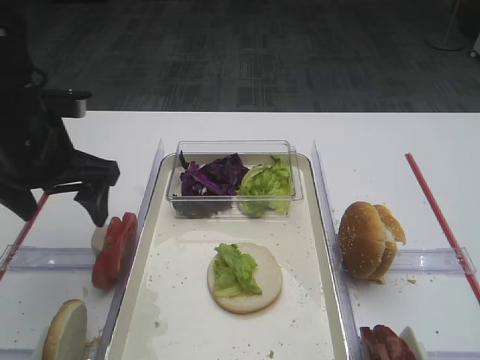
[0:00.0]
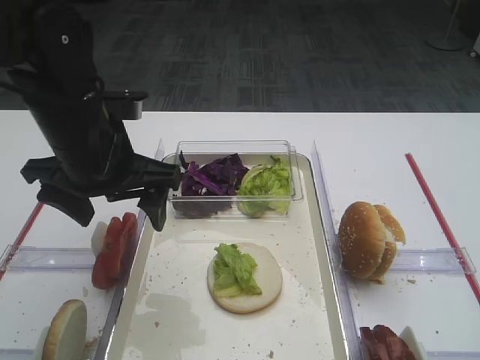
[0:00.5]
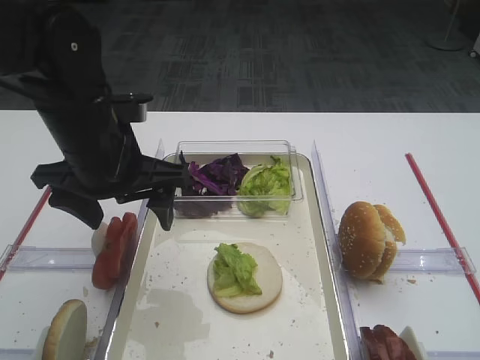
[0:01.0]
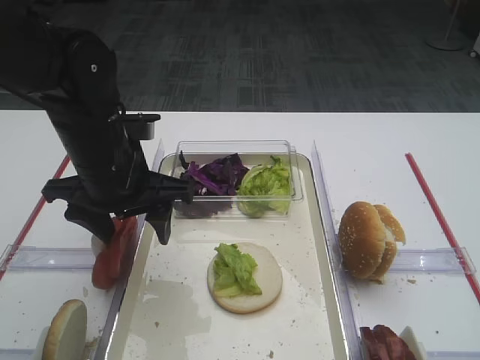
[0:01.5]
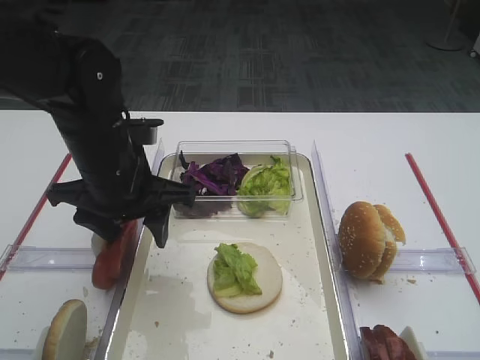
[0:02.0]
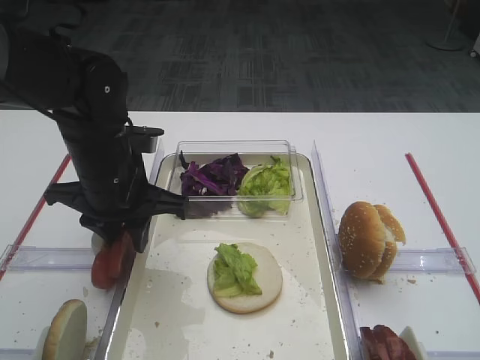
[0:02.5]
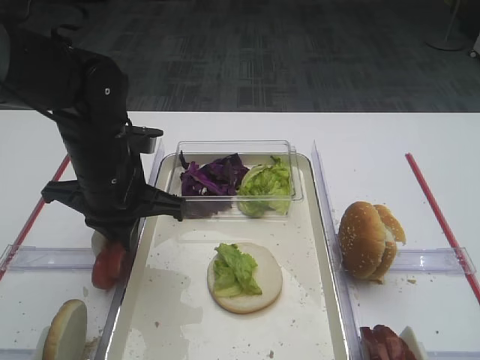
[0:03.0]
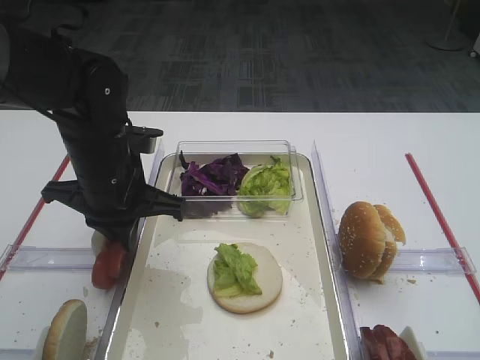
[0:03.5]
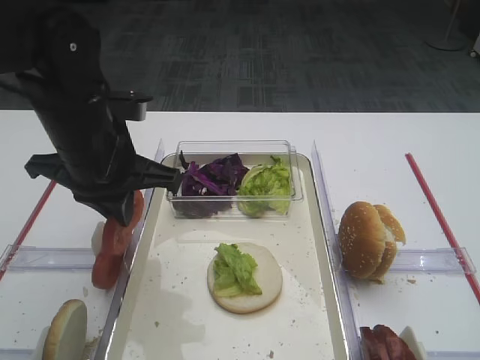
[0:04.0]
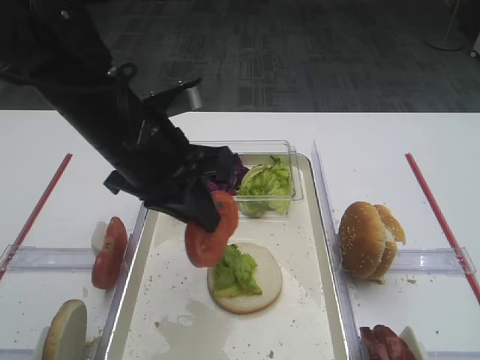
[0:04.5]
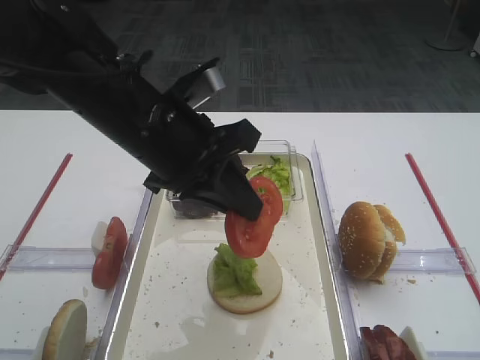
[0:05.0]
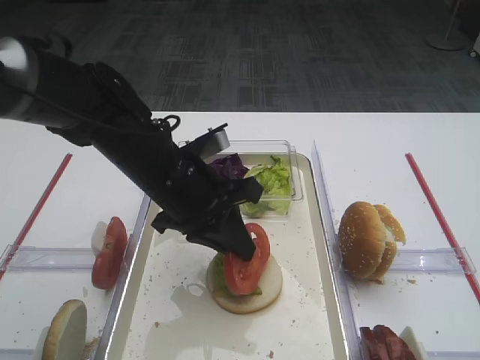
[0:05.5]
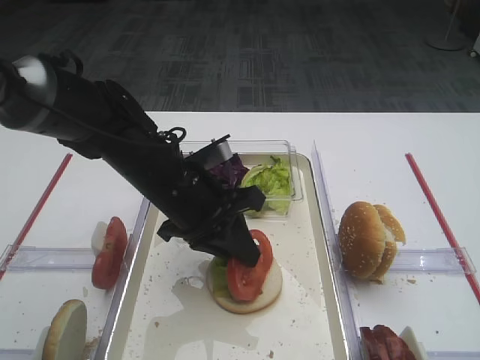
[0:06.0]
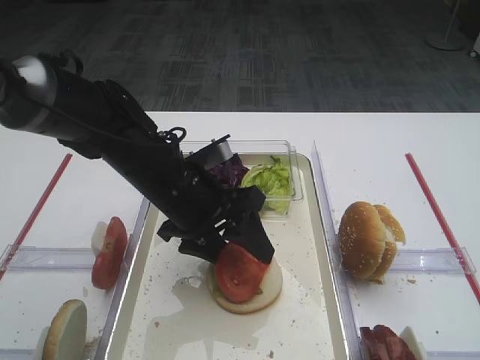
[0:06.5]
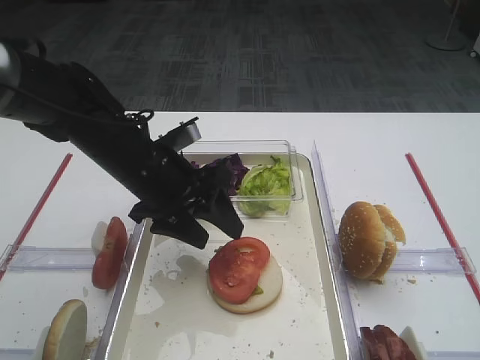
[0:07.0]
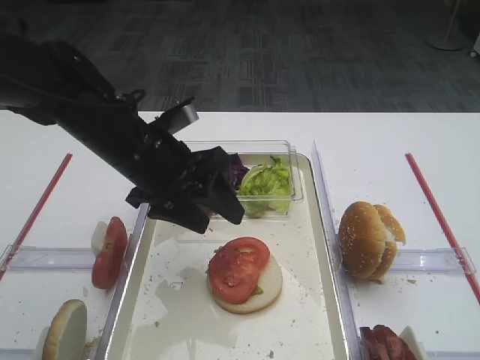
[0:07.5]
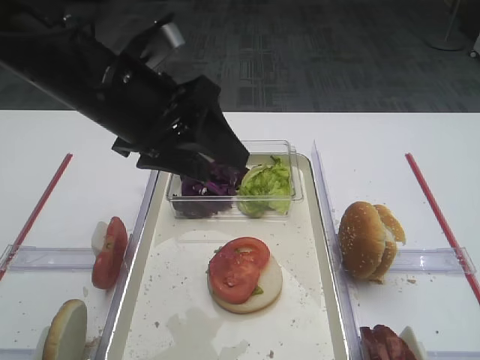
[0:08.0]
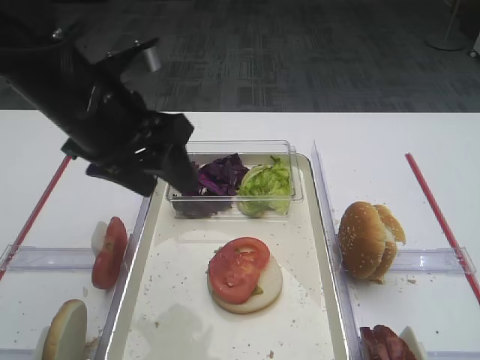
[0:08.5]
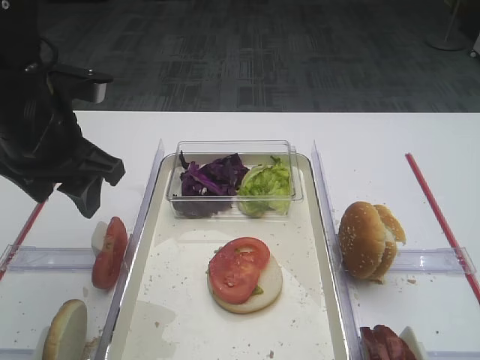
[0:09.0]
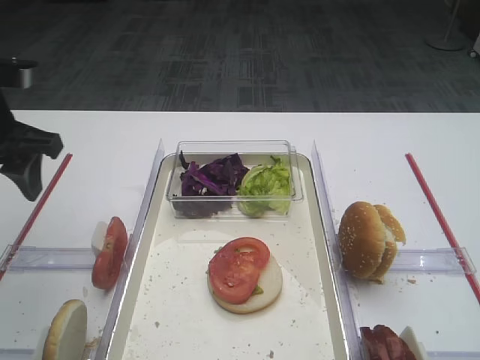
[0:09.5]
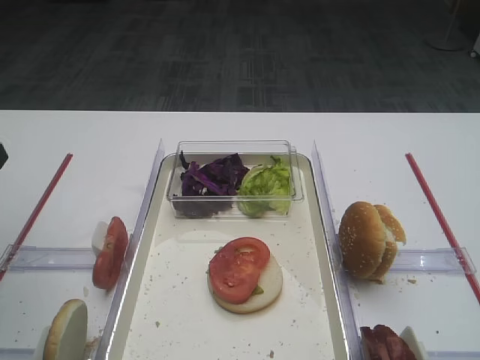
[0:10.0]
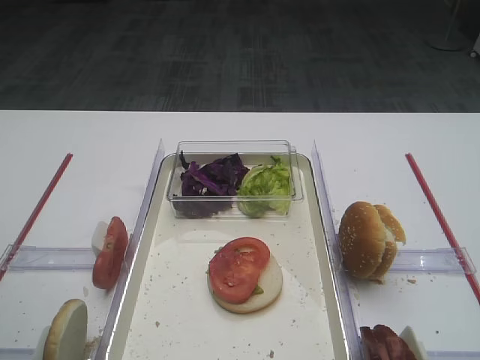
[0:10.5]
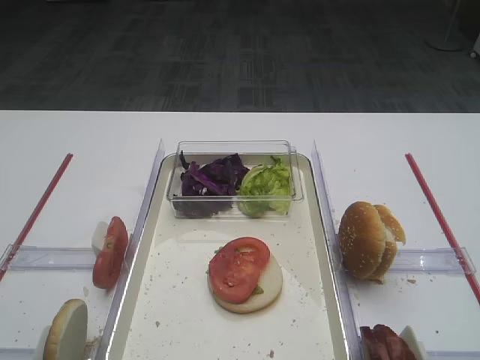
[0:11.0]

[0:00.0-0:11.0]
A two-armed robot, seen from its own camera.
Step, 0:00.0 to 0:03.5: Pick up the tomato slice with the left gripper.
Step, 0:04.0 to 0:07.0: Place the tomato slice on the lettuce leaf with the left gripper.
0:00.0 to 0:02.0: The left gripper is displaced to the right by some 10 cm.
0:02.0 to 0:03.5: The left gripper closes up.
0:03.5 to 0:05.5: The left gripper is displaced to the right by about 5 cm.
0:05.5 to 0:07.5: The left gripper opens up.
0:07.5 to 0:09.0: The left gripper goes some 10 cm to the left and upward.
0:09.0 to 0:11.0: The left gripper shifts some 25 cm backward and to the left.

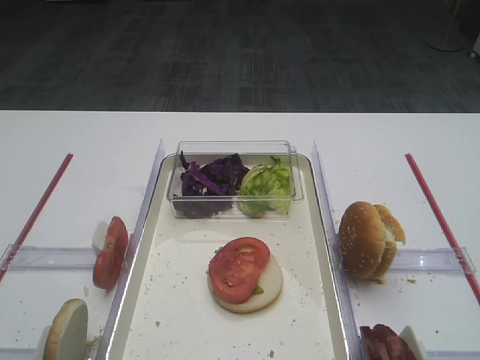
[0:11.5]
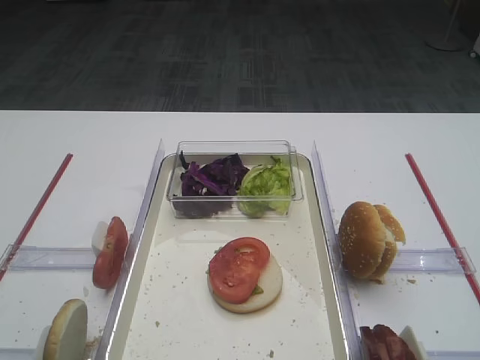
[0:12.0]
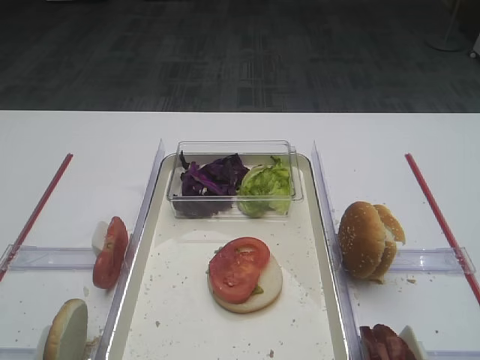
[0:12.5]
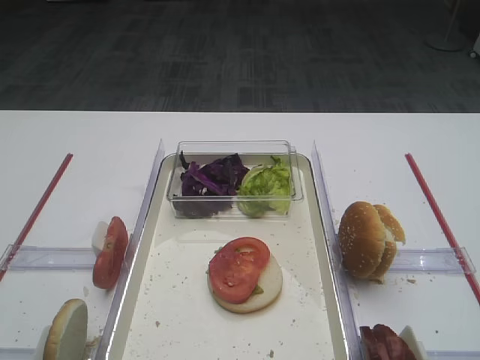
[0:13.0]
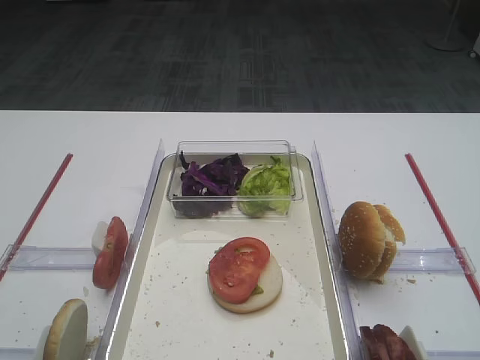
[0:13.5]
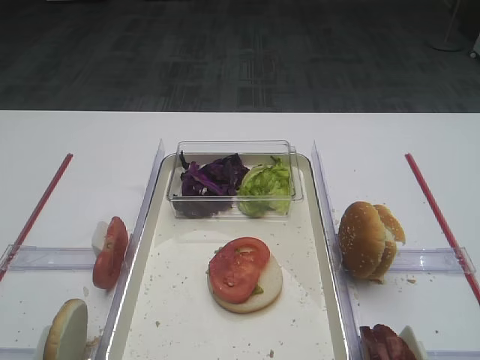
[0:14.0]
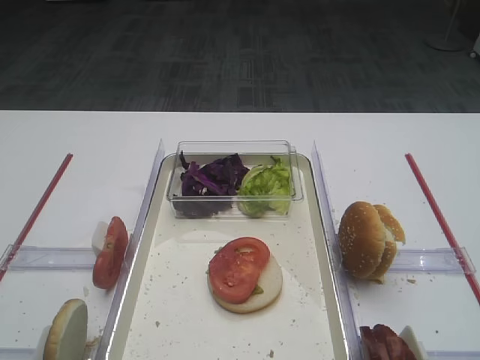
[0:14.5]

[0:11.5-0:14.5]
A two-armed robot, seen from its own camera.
0:13.0 to 0:14.5: Both grippers stay about where they are.
